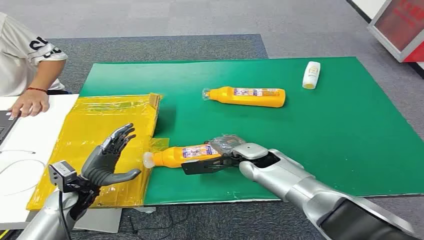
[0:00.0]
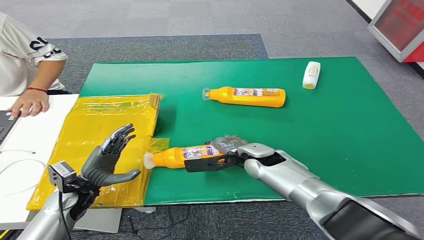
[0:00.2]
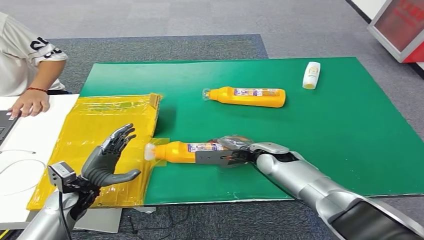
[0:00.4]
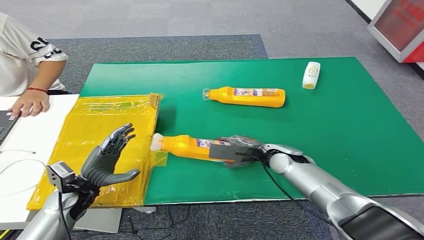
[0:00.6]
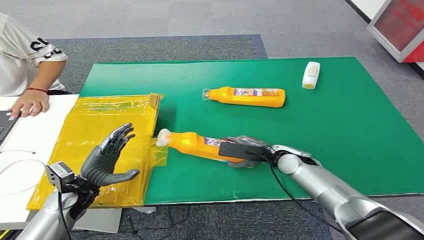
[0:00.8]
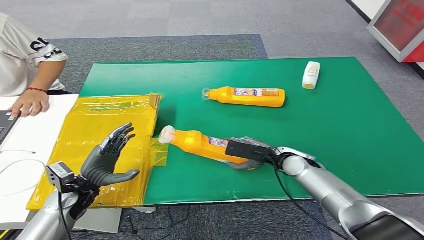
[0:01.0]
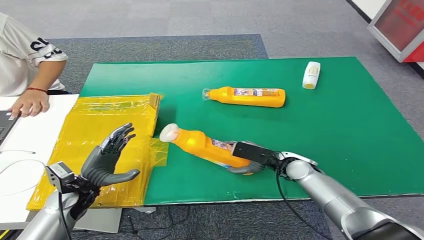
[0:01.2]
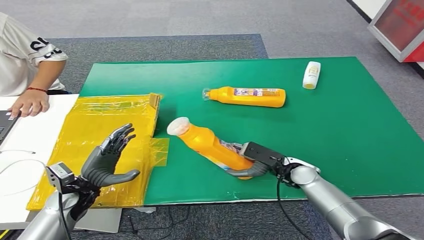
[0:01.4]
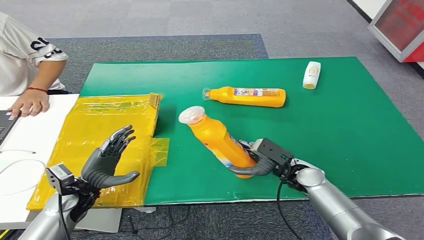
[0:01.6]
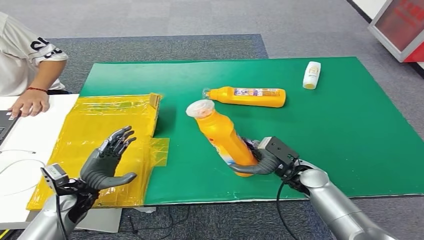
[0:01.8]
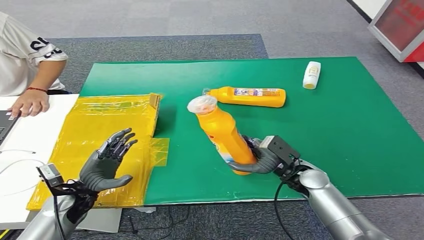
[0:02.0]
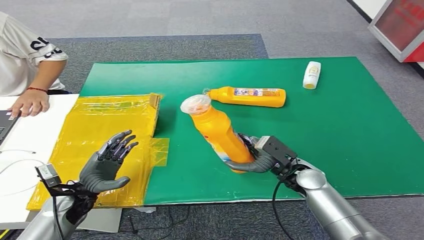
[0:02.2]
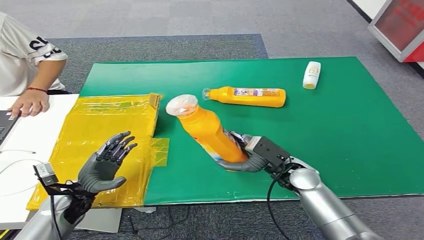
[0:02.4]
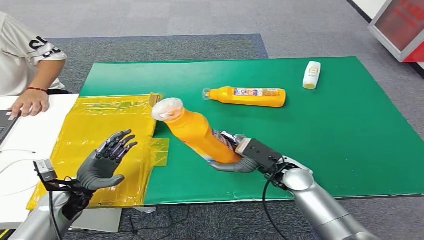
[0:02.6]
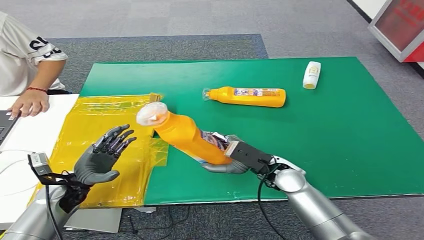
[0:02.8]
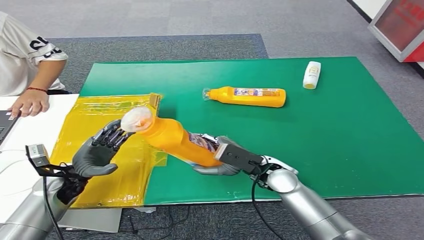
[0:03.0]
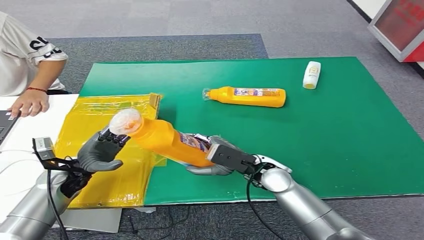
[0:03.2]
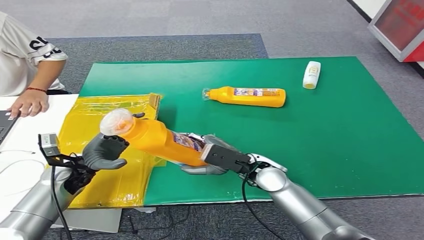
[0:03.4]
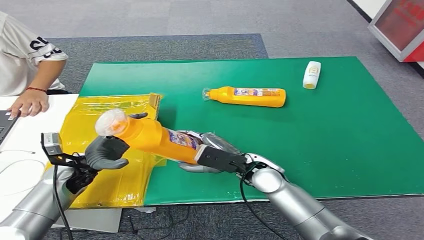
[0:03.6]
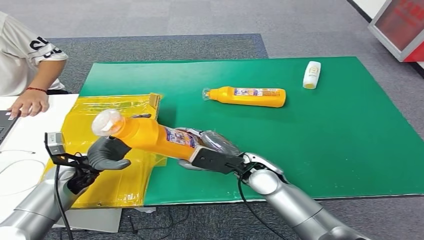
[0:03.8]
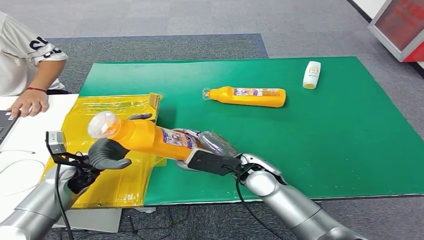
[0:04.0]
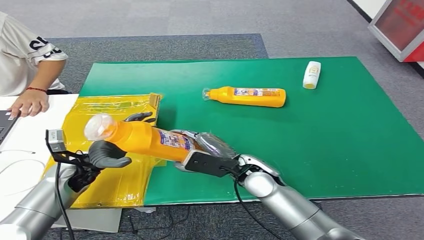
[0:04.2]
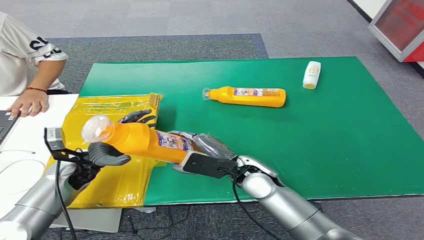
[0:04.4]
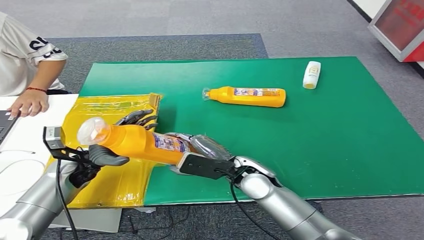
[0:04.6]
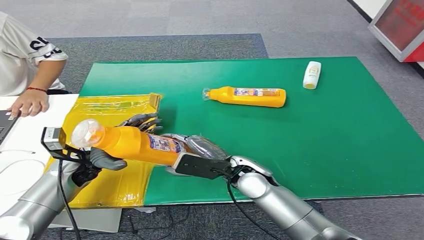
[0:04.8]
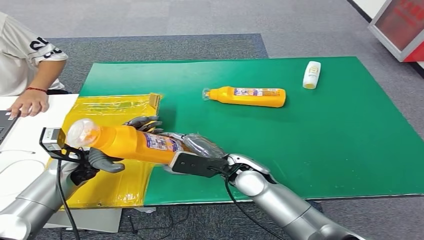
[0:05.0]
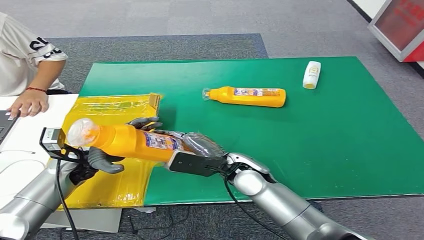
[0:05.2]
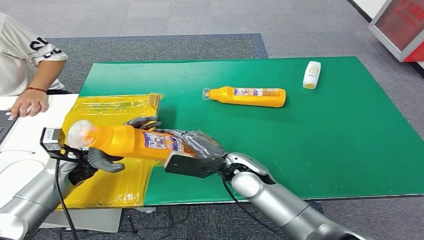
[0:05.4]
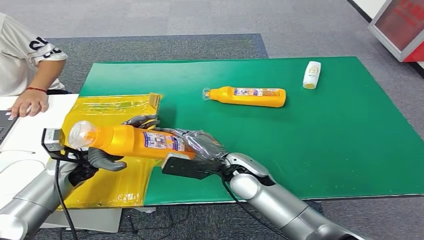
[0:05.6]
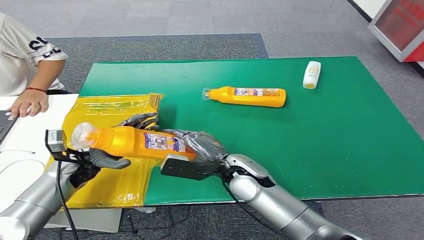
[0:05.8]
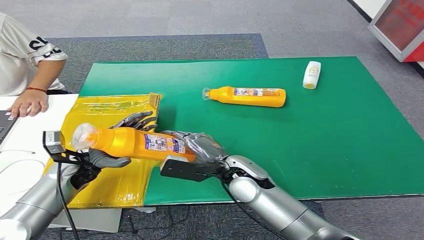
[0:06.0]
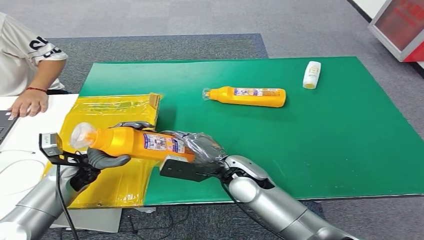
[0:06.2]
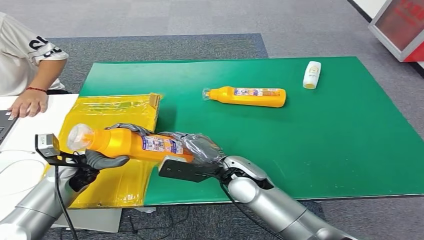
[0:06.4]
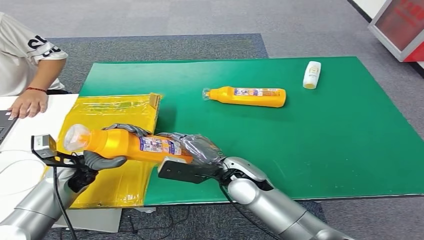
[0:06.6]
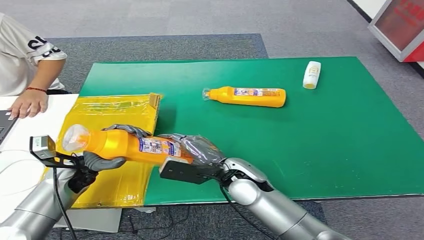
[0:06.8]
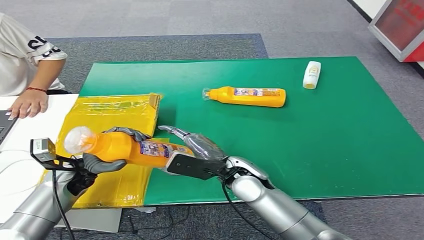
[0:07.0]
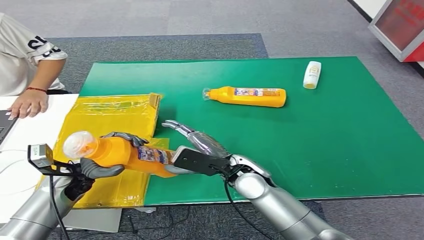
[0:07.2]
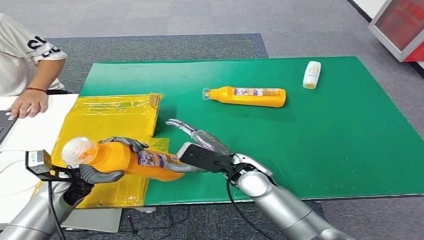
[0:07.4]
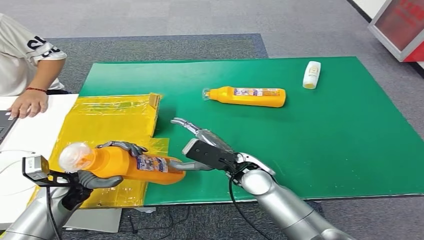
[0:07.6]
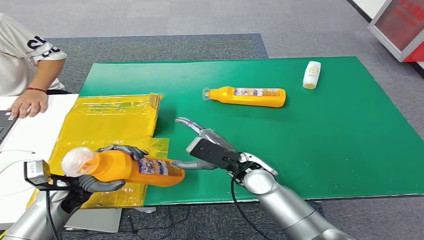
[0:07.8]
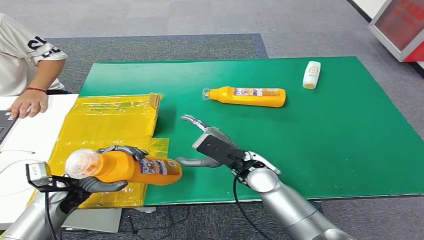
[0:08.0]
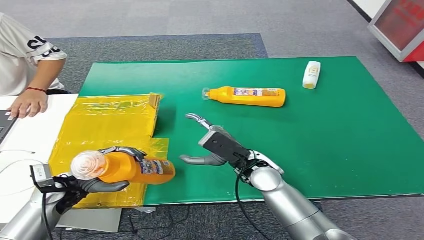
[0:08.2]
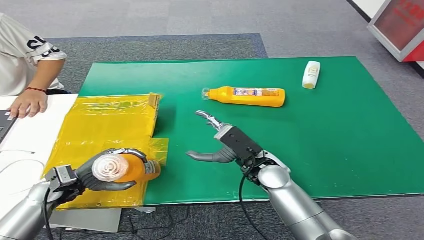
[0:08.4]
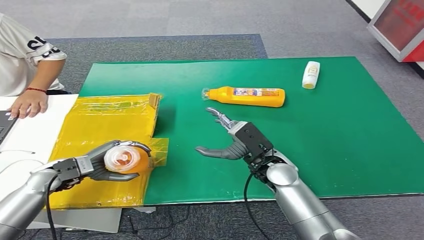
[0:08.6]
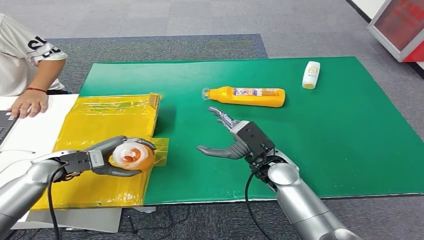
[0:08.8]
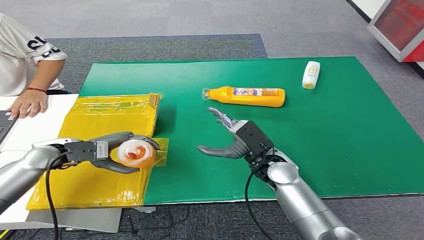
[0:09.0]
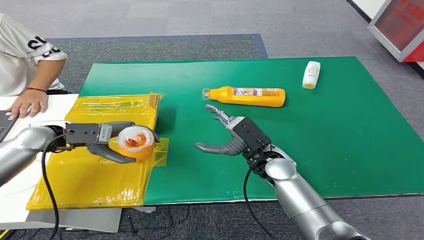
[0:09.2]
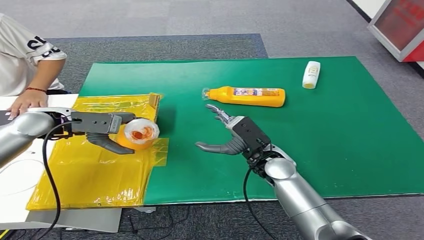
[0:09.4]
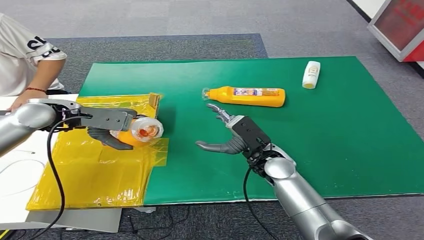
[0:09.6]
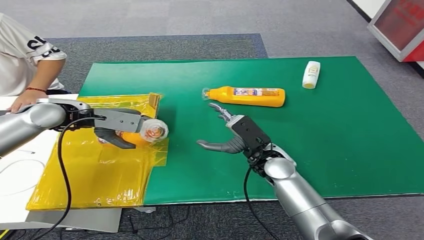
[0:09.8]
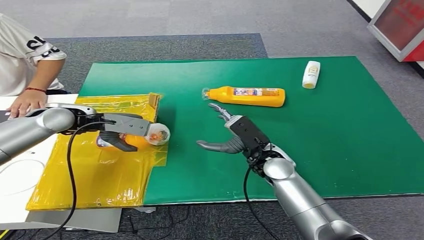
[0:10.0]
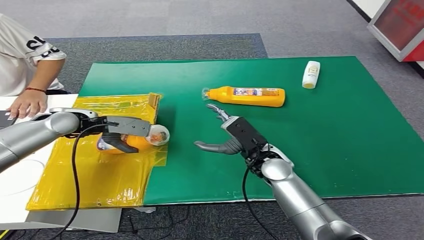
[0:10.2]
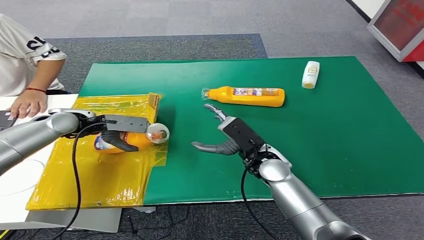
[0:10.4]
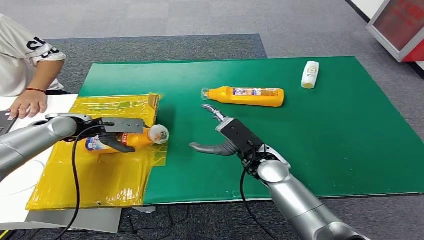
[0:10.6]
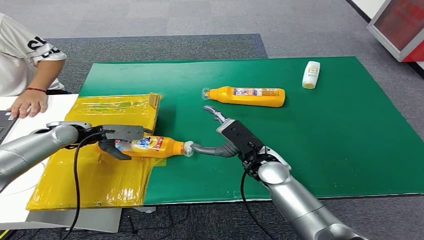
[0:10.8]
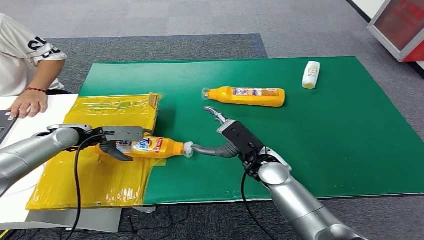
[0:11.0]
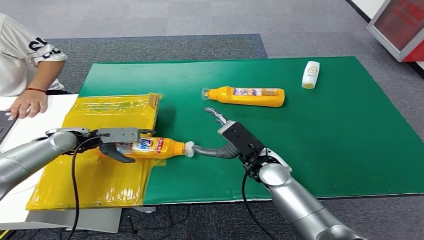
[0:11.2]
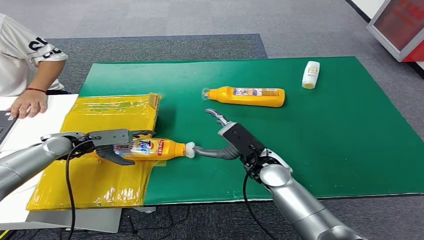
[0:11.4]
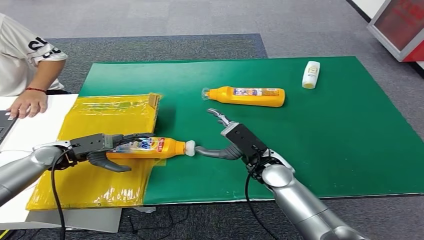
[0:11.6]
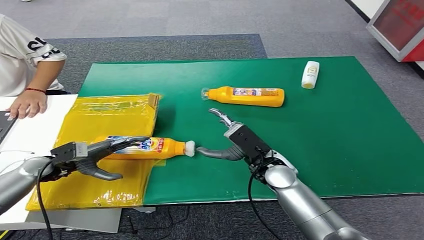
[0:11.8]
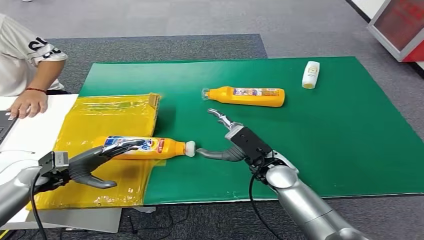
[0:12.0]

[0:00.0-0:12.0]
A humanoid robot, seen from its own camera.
Step, 0:00.0 to 0:03.2: Pick up the bottle from the table.
Step, 0:03.4 to 0:11.8: Turn the bottle to the front side.
0:01.6 to 0:03.0: The right hand is displaced to the left and upward by about 10 cm, while the left hand moves some 5 cm.
0:03.0 to 0:04.4: The right hand shifts by approximately 5 cm, while the left hand ends up some 5 cm from where it was.
0:04.4 to 0:06.0: The hands move only a little.
0:06.0 to 0:07.6: The left hand heads backward, covering some 5 cm.
0:07.6 to 0:09.0: The left hand is displaced upward and forward by about 10 cm; the right hand shifts approximately 5 cm to the right.
0:09.0 to 0:10.4: The left hand shifts about 10 cm forward.
0:10.4 to 0:12.0: The left hand moves backward, downward and to the left, some 20 cm.

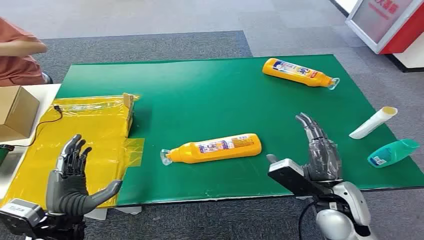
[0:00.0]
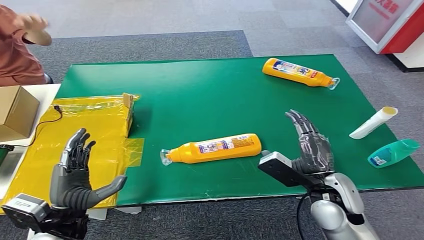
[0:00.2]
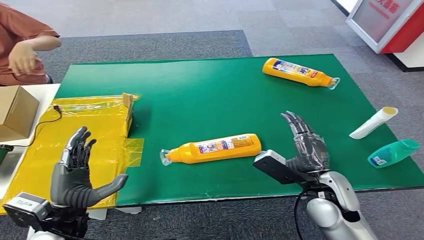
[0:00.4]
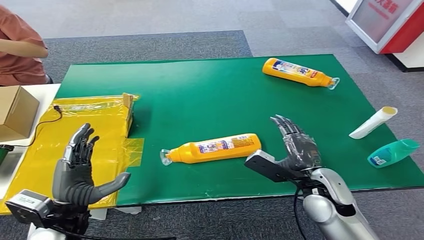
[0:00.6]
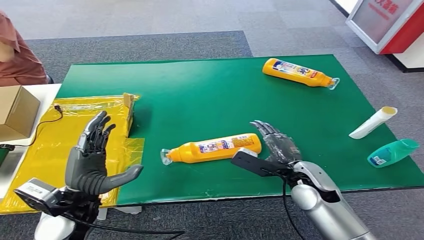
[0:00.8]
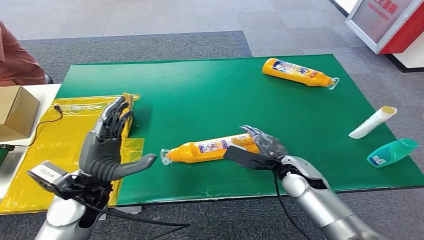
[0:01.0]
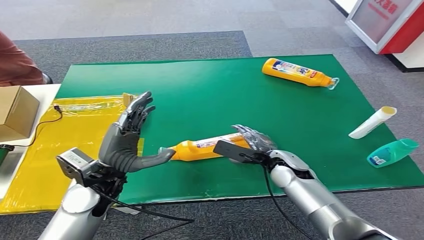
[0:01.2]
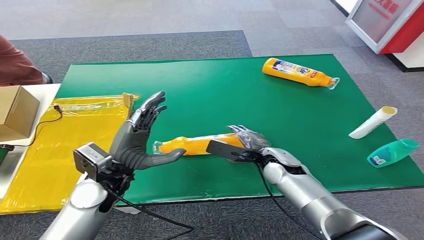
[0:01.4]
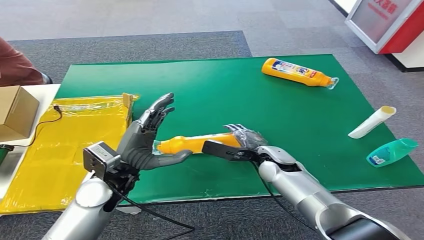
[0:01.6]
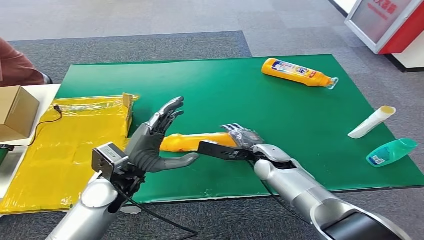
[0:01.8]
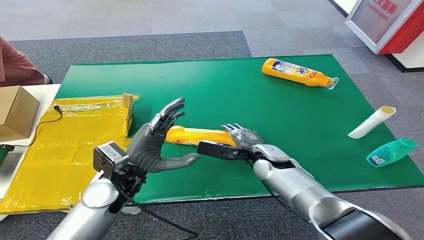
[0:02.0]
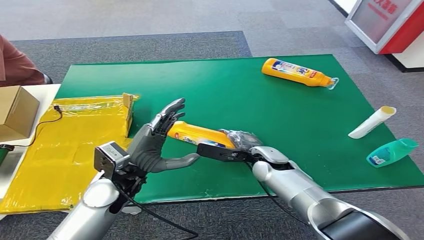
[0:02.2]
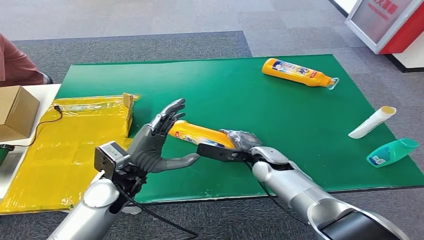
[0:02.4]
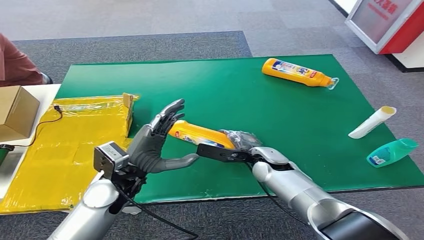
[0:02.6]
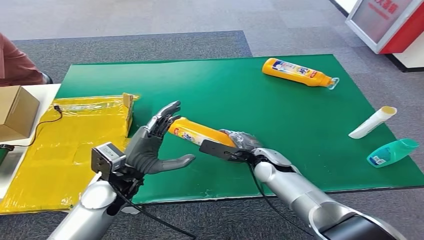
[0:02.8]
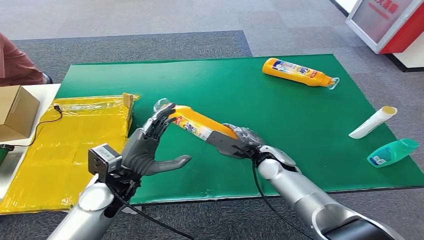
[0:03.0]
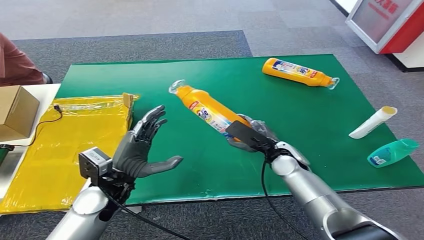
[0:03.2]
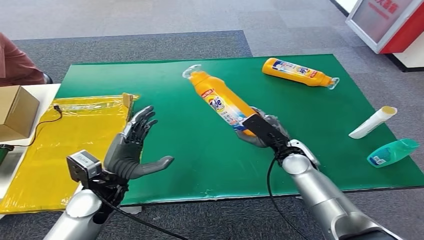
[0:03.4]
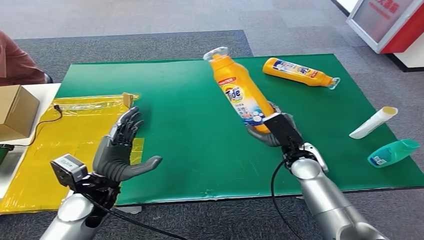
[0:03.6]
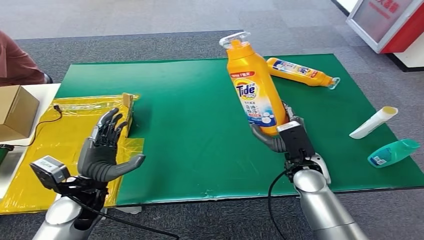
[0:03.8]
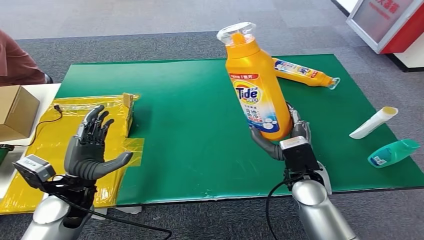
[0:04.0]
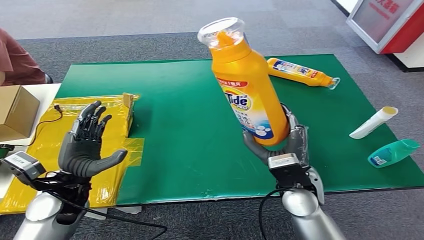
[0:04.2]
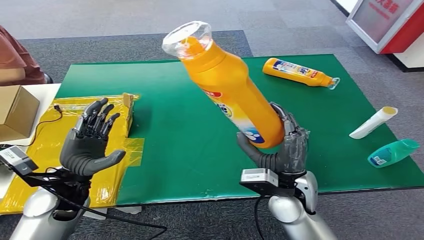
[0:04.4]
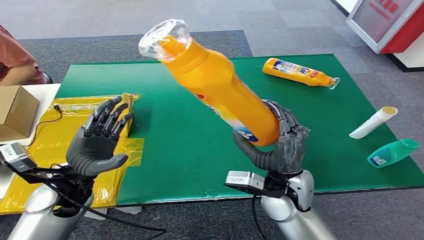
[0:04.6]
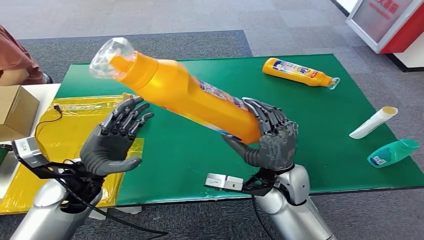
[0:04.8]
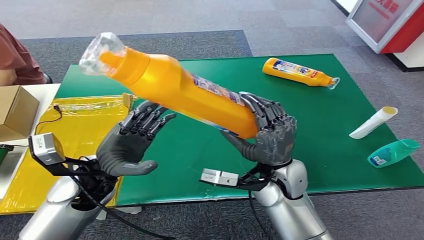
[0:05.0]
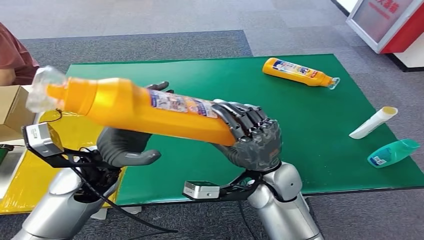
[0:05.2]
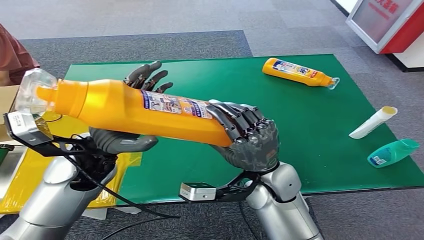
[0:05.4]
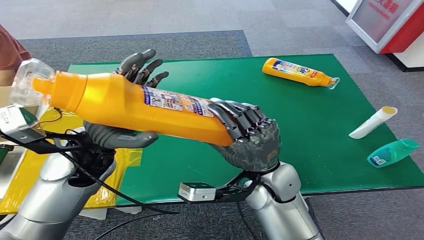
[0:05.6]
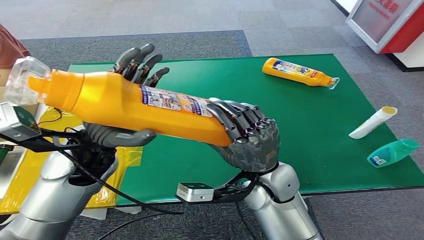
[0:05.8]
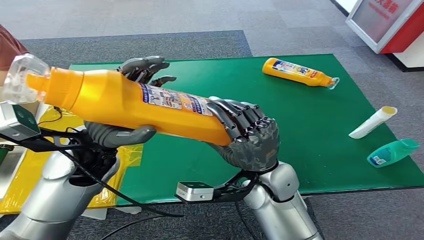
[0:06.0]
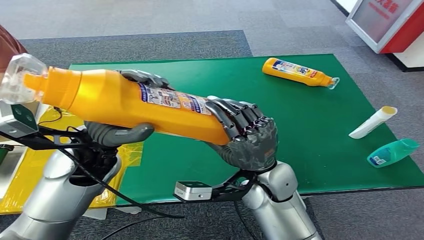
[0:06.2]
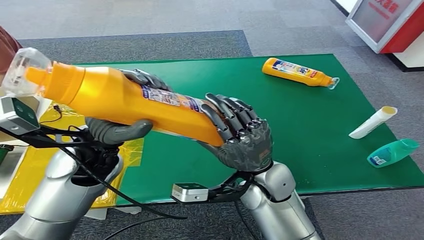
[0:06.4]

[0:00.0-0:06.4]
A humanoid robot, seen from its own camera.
Step, 0:00.0 to 0:03.4: Pick up the bottle from the table.
